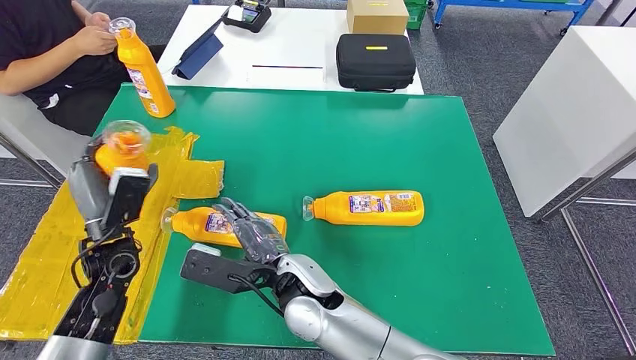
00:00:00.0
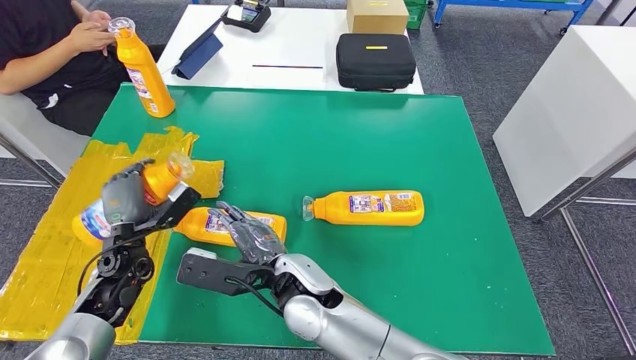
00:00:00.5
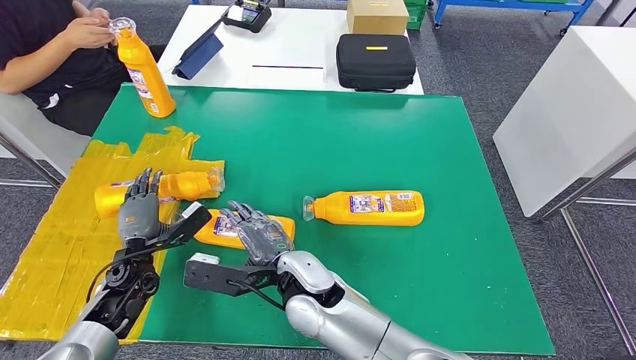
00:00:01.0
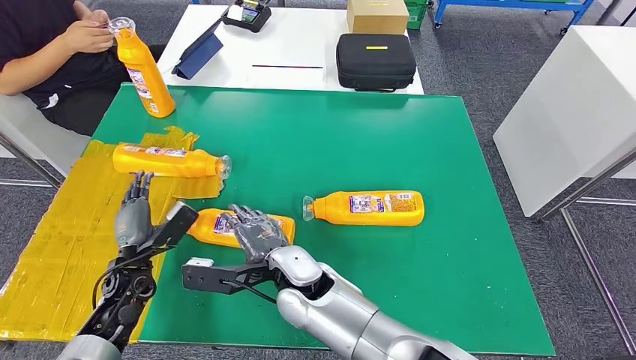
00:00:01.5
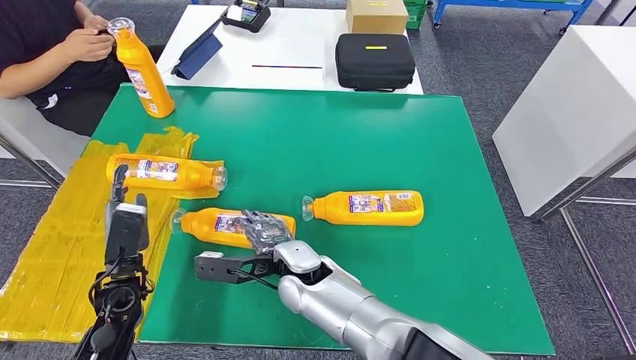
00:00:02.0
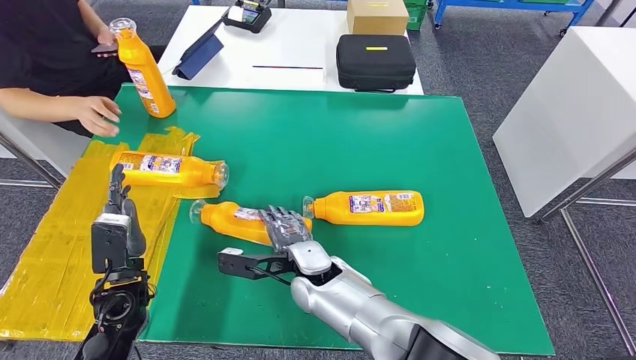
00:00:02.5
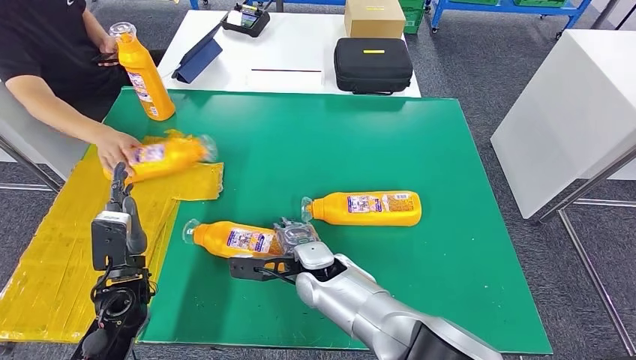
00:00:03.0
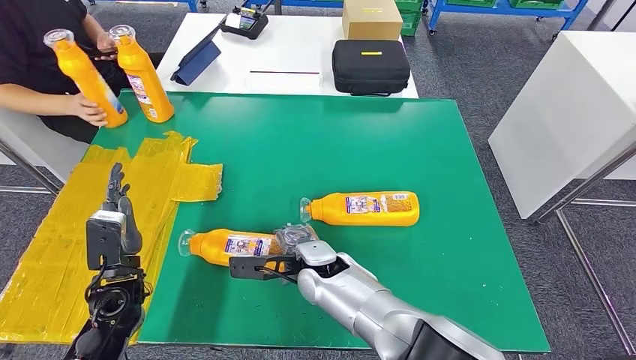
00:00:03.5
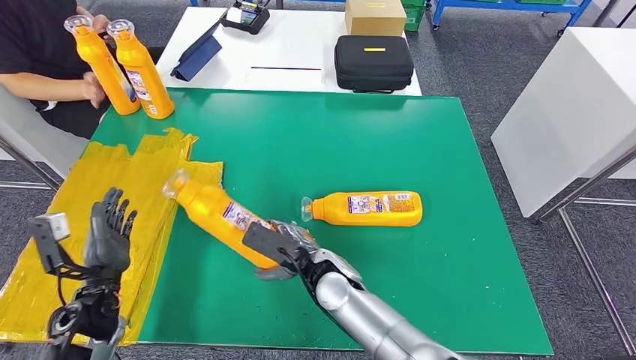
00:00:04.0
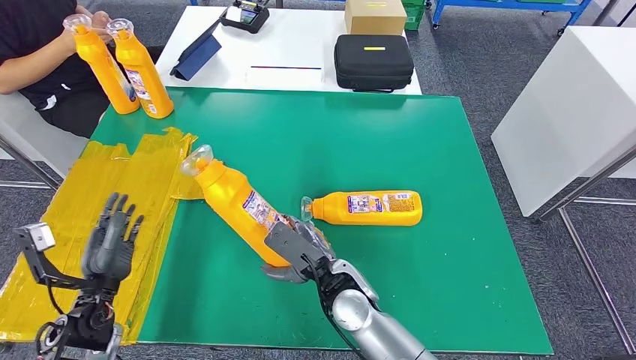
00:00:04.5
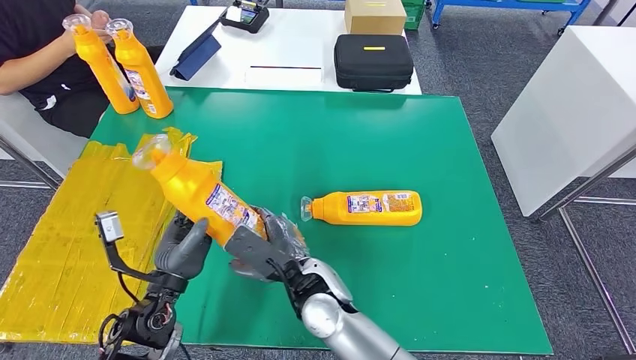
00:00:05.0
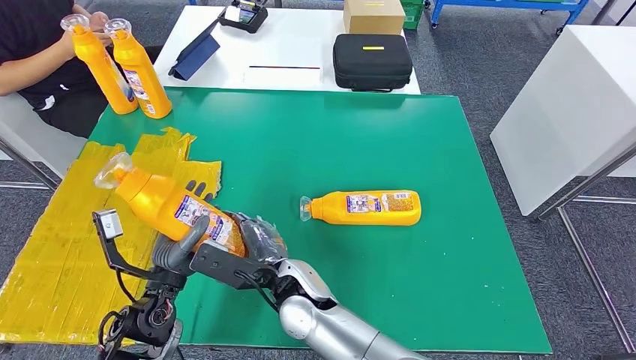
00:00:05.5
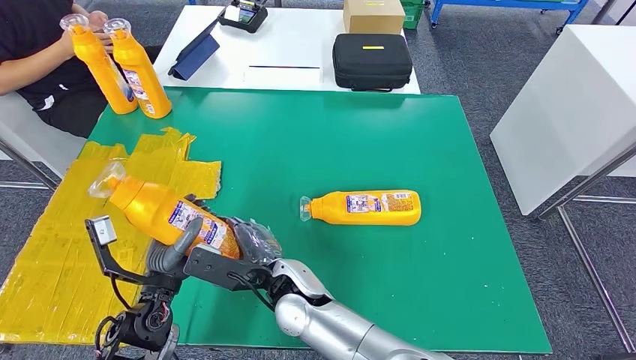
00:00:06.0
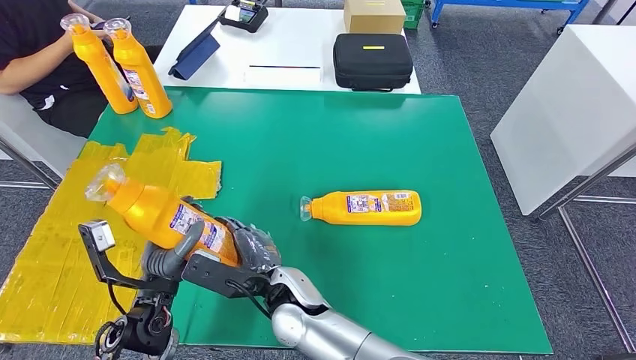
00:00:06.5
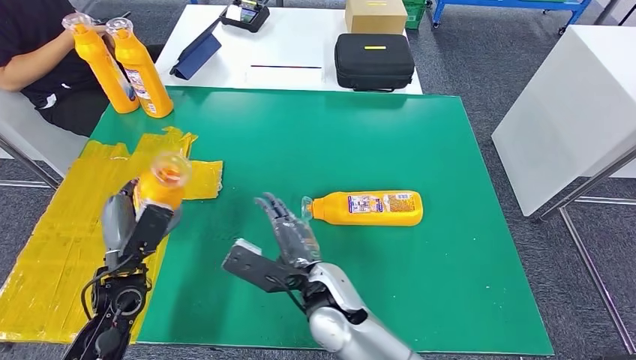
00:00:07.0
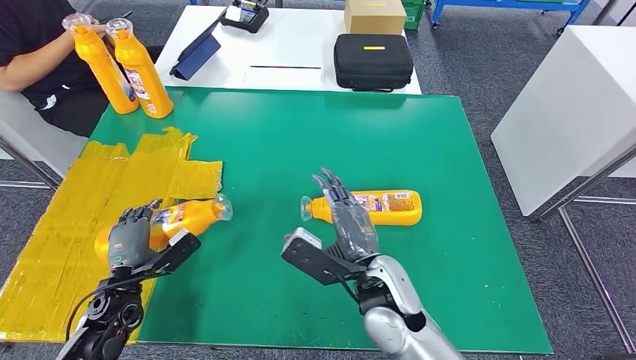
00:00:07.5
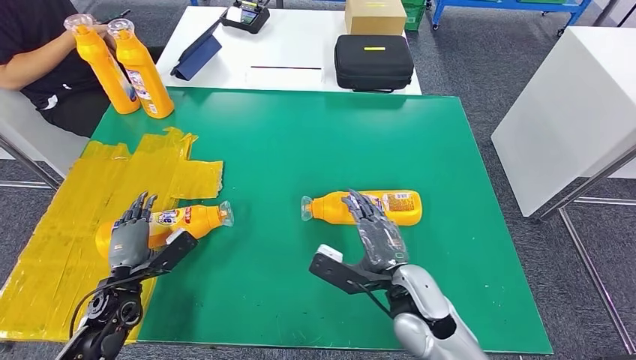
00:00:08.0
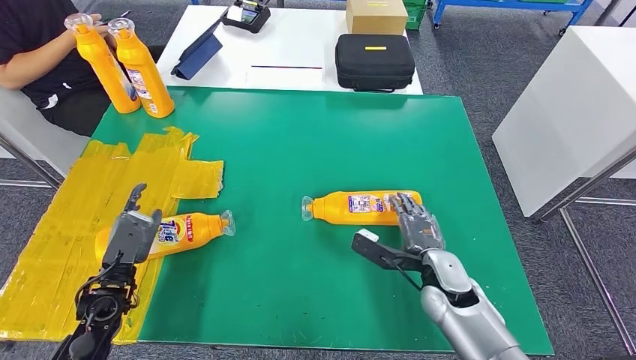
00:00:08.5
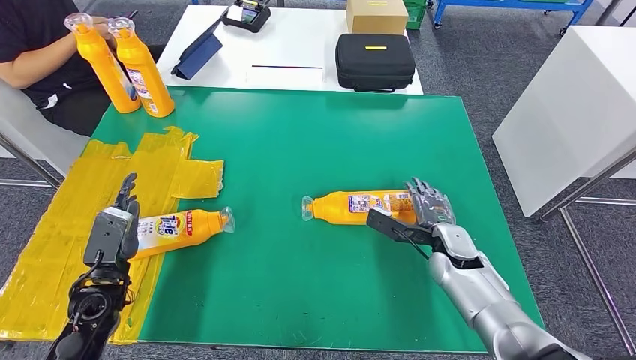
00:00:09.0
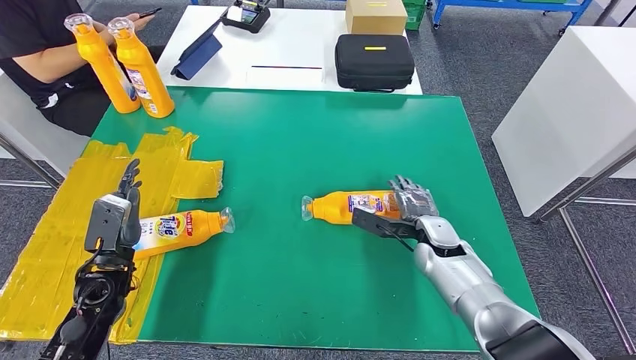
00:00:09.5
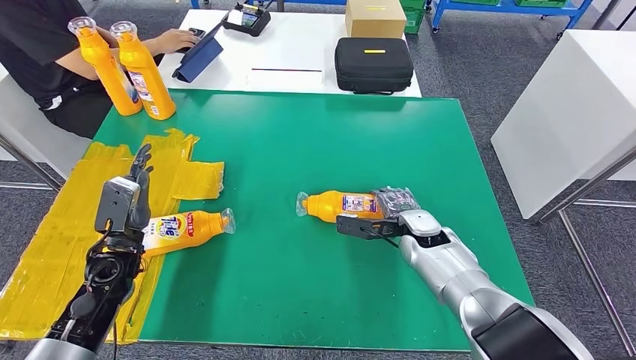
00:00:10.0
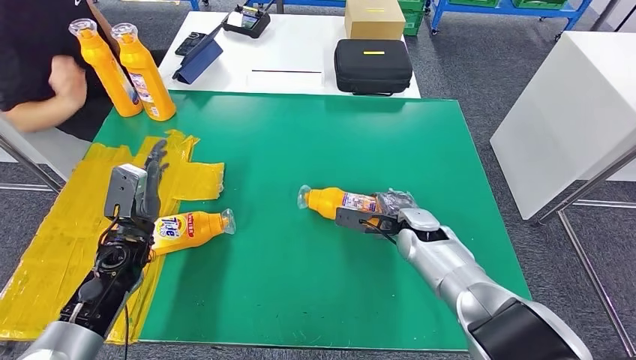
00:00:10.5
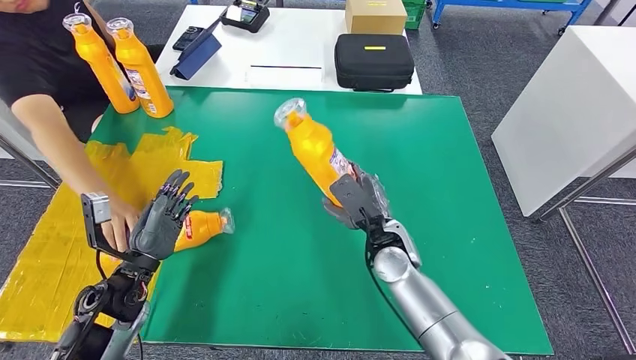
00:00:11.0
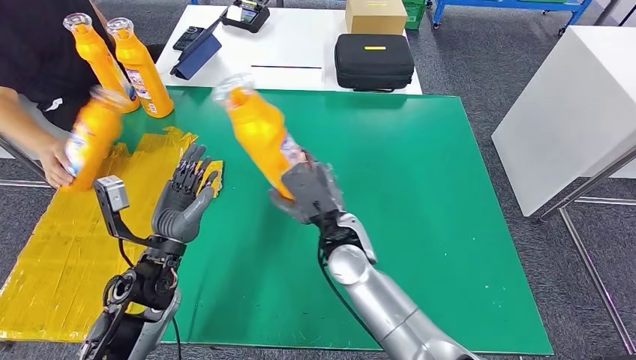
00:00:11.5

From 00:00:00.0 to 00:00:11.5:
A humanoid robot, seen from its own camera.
Step, from 00:00:03.5 to 00:00:04.5: Pick up the bottle from the table.
Step, from 00:00:06.0 to 00:00:08.0: Flip the bottle to face forward.
From 00:00:00.0 to 00:00:02.0: The right hand ends up about 5 cm from where it was. The left hand shifts some 10 cm downward and backward.
From 00:00:06.0 to 00:00:07.5: The right hand moves to the right, about 15 cm. The left hand heads to the left and downward, covering about 15 cm.

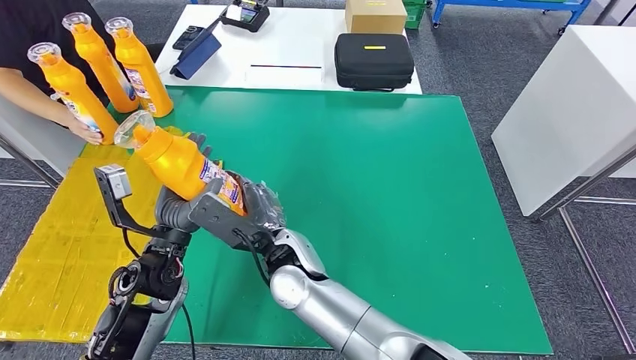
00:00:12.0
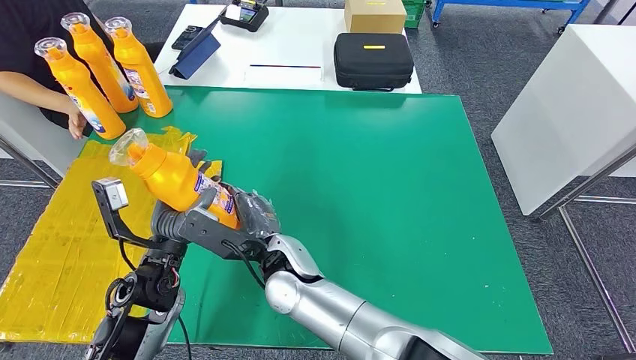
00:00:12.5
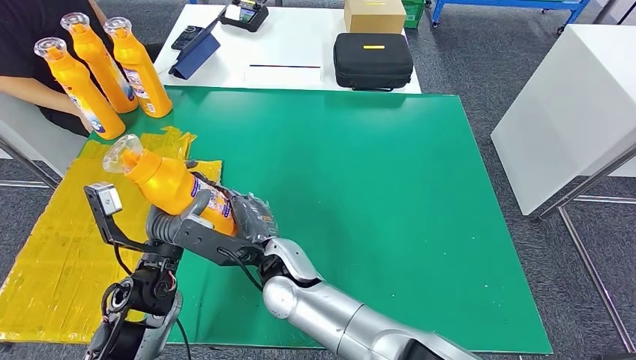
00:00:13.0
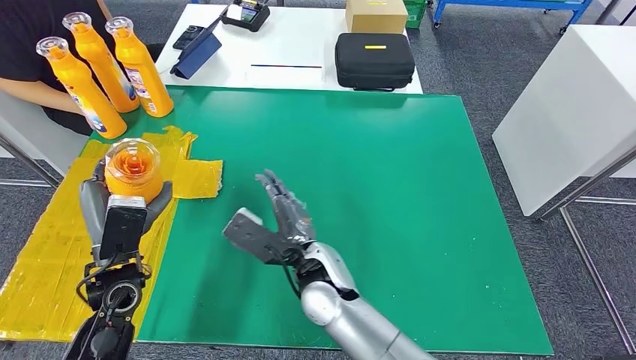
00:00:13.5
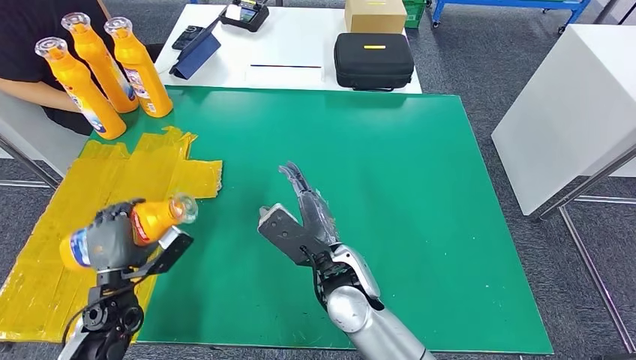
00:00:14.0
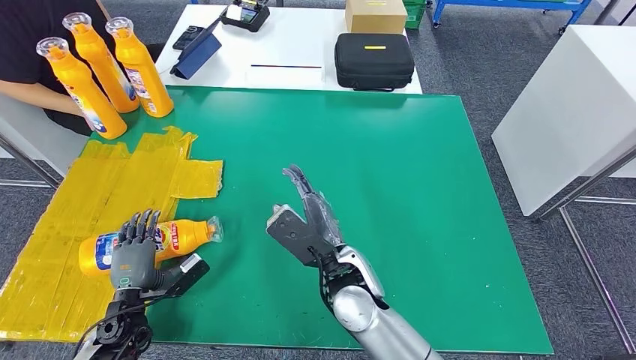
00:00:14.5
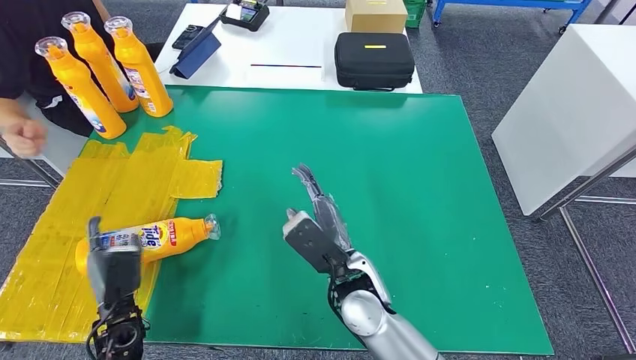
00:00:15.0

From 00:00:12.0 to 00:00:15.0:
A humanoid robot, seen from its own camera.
Step, from 00:00:13.5 to 00:00:15.0: Flip the bottle to face forward.
From 00:00:12.0 to 00:00:13.5: The left hand goes roughly 5 cm to the left. The right hand is displaced to the right by approximately 5 cm.
From 00:00:13.5 to 00:00:15.0: The left hand is displaced downward and backward by some 15 cm; the right hand is displaced to the right by about 5 cm.
